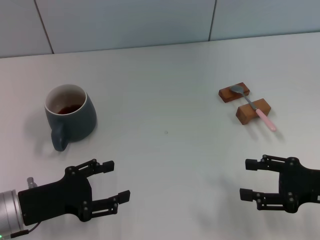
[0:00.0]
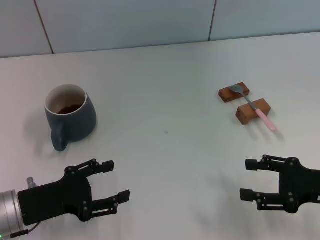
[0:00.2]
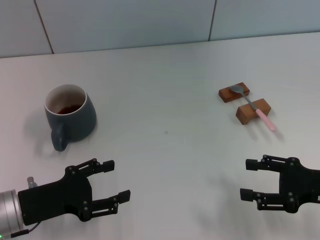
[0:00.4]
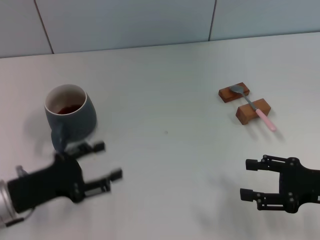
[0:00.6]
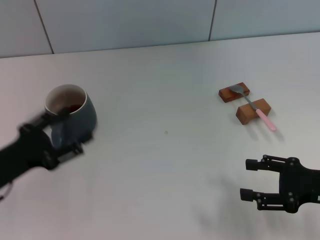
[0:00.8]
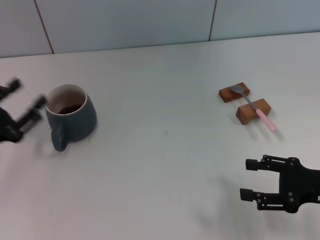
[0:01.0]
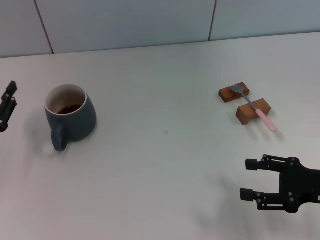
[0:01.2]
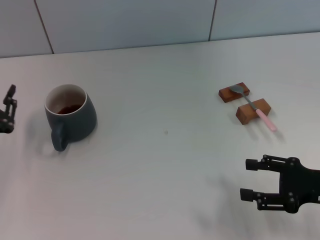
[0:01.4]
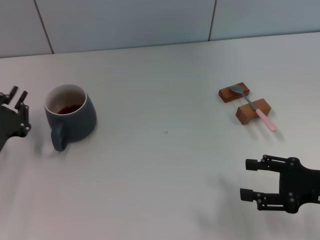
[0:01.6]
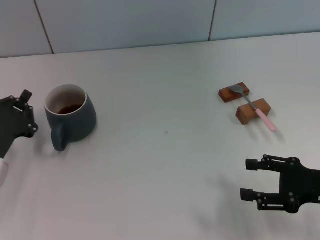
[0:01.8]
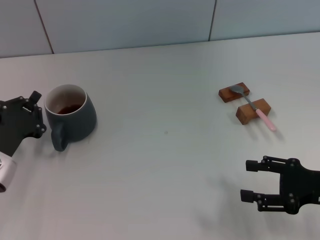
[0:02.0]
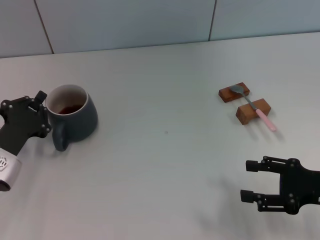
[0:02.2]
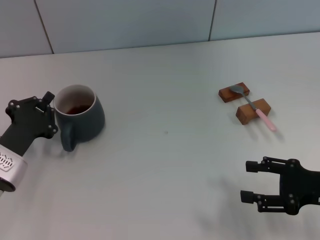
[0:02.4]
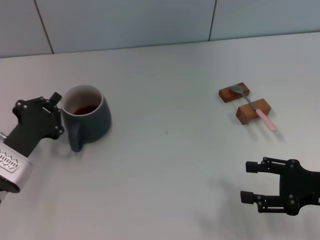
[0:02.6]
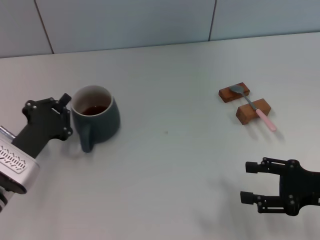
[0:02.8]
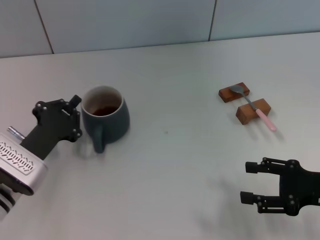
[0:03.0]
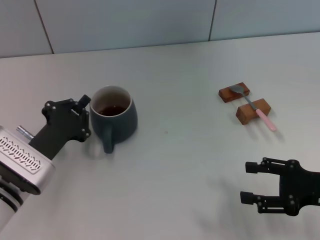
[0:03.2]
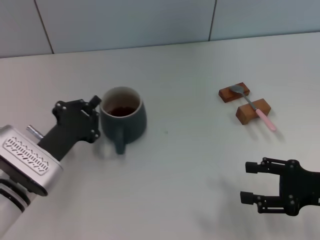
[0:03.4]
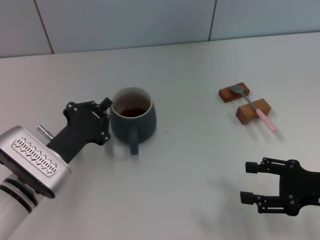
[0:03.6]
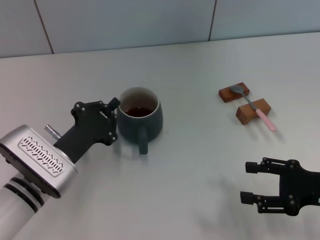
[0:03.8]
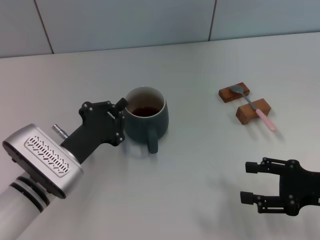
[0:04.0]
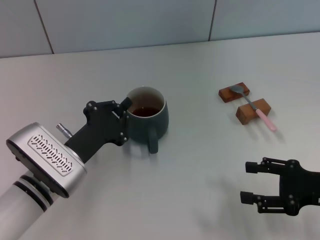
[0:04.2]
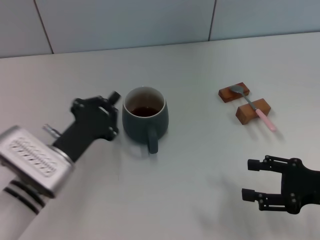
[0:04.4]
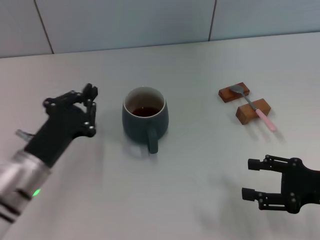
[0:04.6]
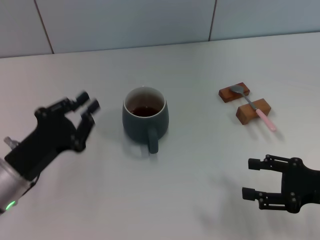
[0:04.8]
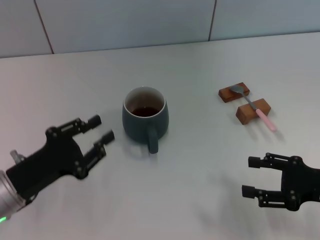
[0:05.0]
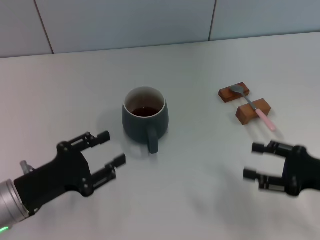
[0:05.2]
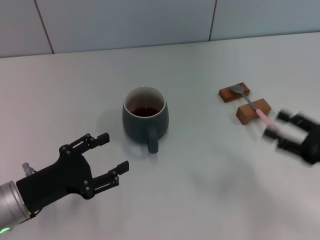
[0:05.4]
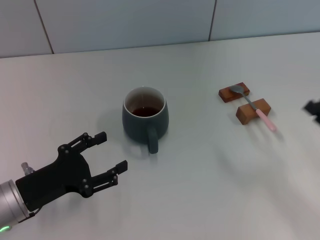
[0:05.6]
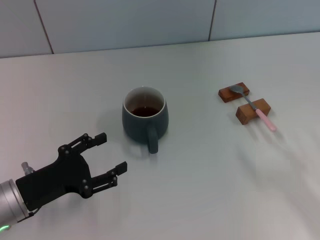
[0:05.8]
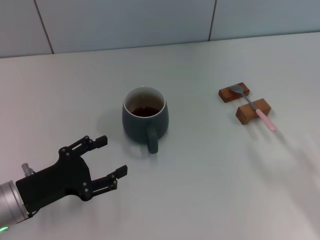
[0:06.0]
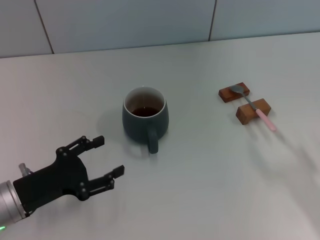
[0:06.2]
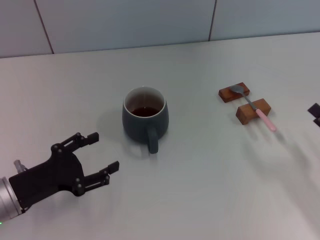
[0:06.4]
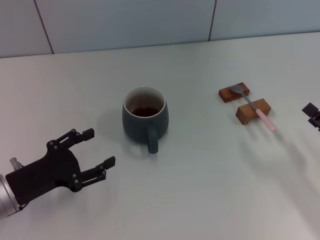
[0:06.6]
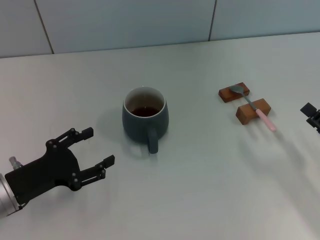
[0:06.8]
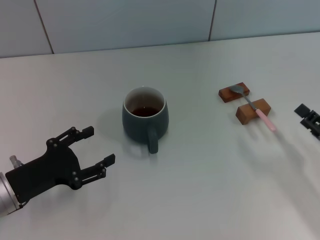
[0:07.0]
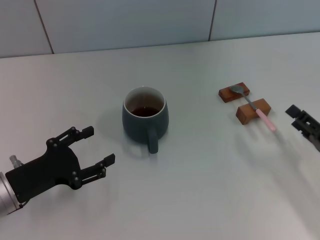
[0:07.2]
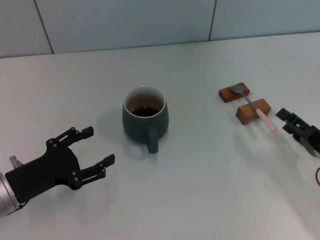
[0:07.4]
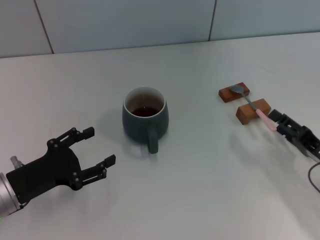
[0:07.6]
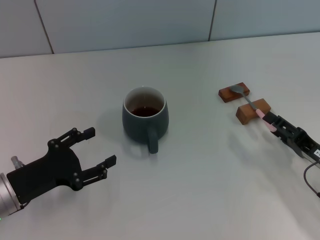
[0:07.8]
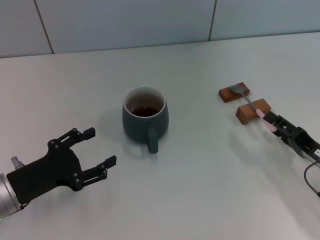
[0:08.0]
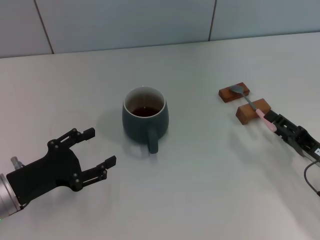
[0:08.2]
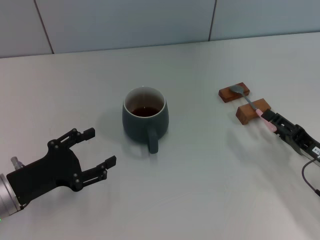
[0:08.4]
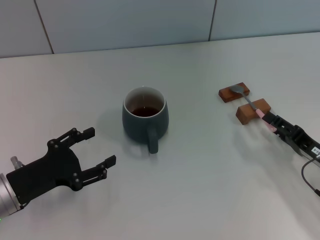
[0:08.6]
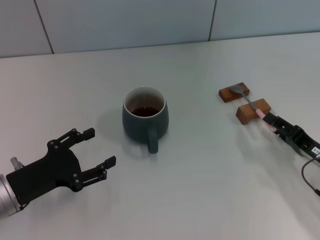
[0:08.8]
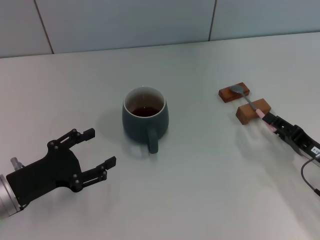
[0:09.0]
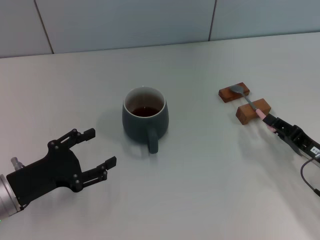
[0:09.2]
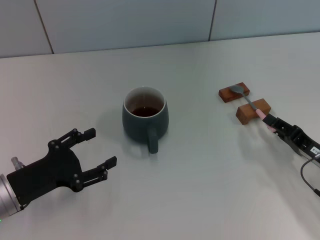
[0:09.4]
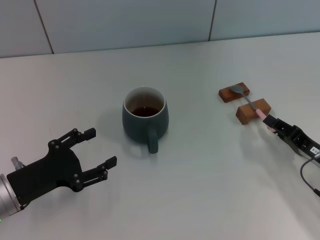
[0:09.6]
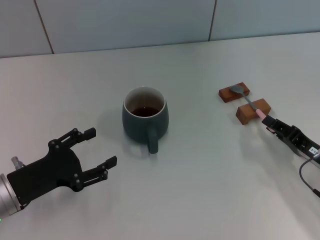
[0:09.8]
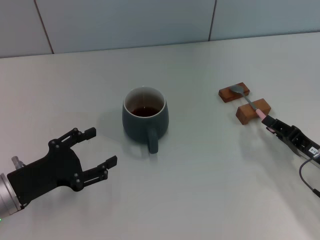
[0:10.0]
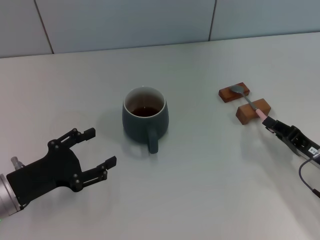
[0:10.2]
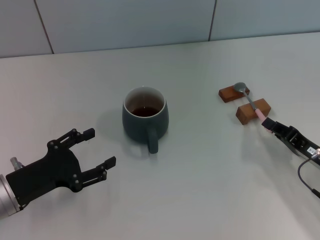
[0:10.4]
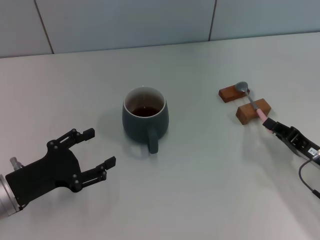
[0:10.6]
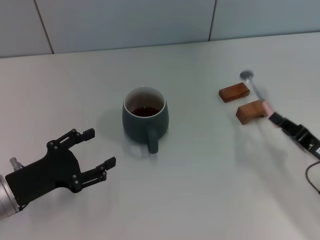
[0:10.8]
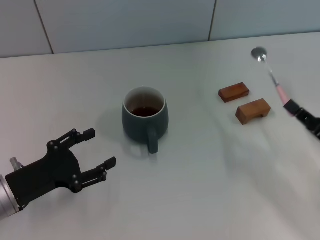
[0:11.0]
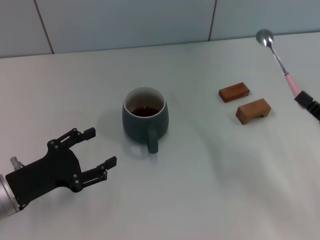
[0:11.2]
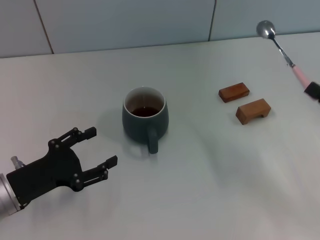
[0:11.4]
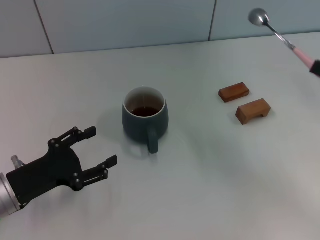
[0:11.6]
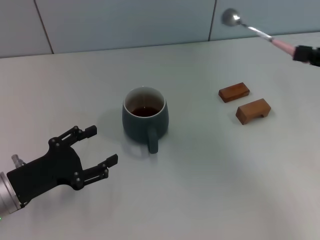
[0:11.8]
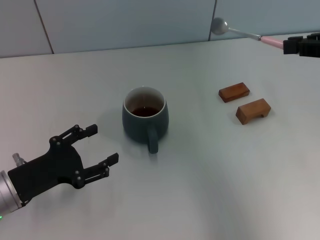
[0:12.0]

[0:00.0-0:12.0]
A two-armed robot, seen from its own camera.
Task of the whole recording: Move the grey cup to the center, lift the pink spoon, stir it three times in the cup, and put the spoon into the cup.
Step, 0:00.0 to 0:04.4: Move the cup with coffee to the center of view with the left gripper.
Step, 0:04.6 to 0:10.6: Pick up the spoon with the right gripper.
0:00.0 to 0:01.6: The left gripper closes up.
0:01.6 to 0:03.0: The left gripper goes about 5 cm to the right, and closes up.
0:03.0 to 0:04.4: The grippers move only a little.
0:04.4 to 0:06.0: The left gripper goes some 5 cm to the left, and opens. Meanwhile the right gripper shifts by about 5 cm.
0:06.0 to 0:07.6: The right gripper changes place by about 5 cm.
0:07.6 to 0:09.0: The two grippers keep their place.
0:09.0 to 0:10.4: The right gripper closes up.
0:10.4 to 0:12.0: The right gripper heads upward, covering about 25 cm.

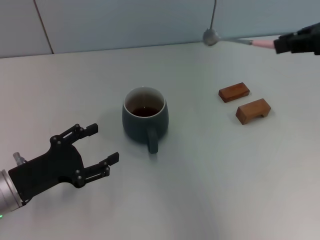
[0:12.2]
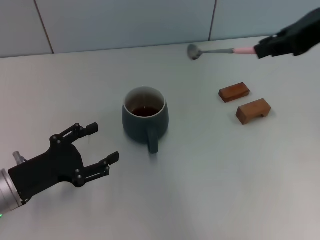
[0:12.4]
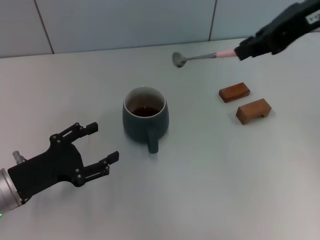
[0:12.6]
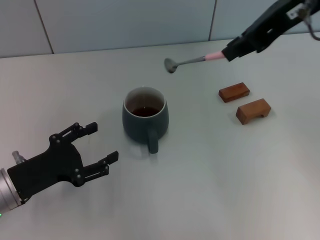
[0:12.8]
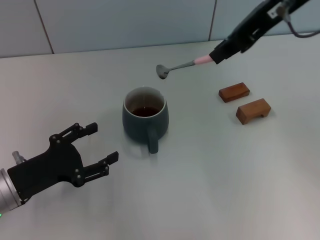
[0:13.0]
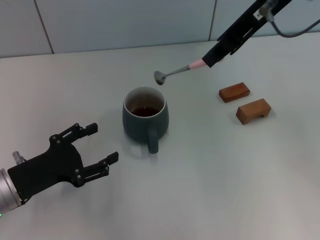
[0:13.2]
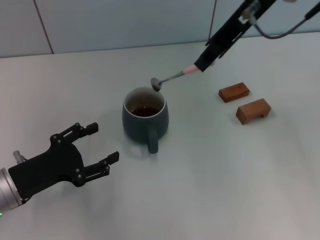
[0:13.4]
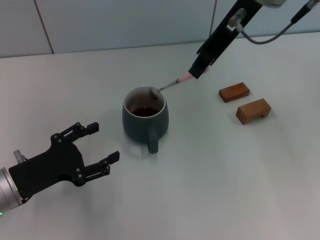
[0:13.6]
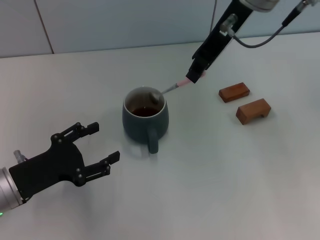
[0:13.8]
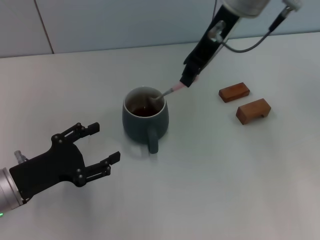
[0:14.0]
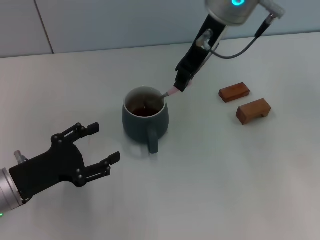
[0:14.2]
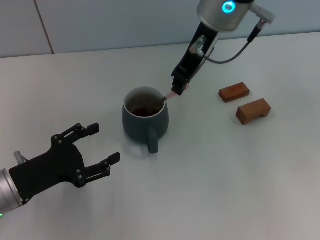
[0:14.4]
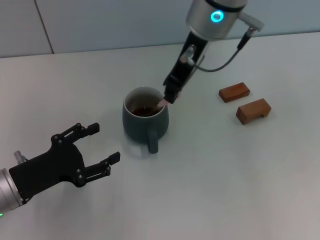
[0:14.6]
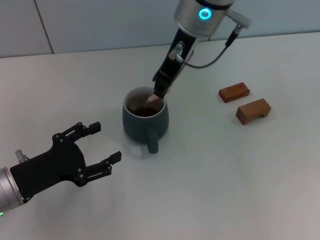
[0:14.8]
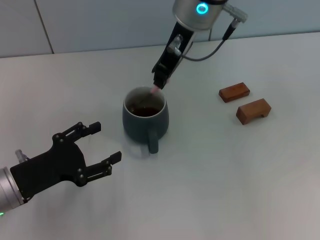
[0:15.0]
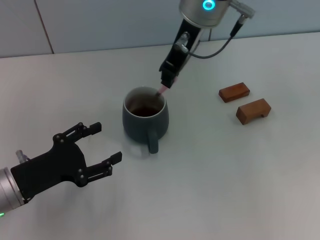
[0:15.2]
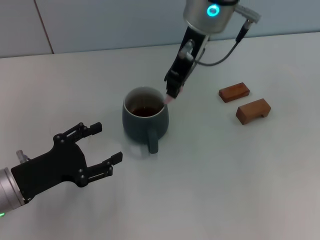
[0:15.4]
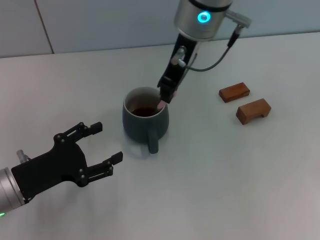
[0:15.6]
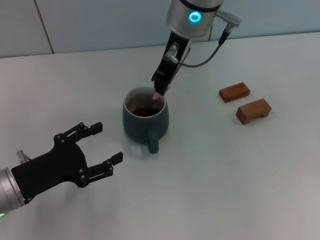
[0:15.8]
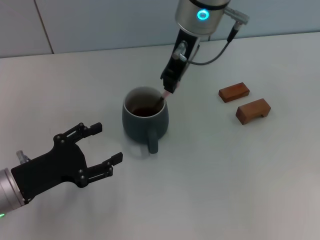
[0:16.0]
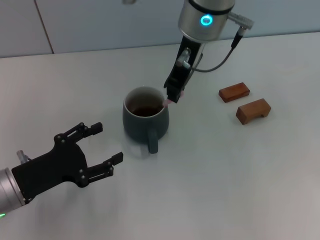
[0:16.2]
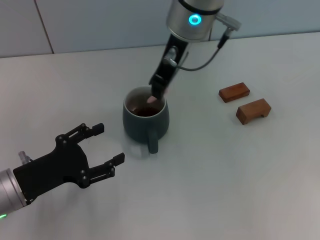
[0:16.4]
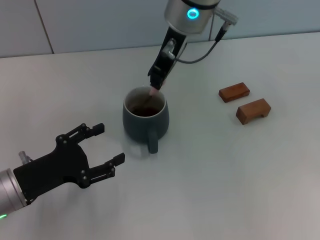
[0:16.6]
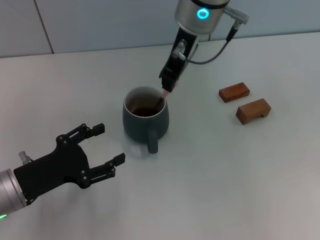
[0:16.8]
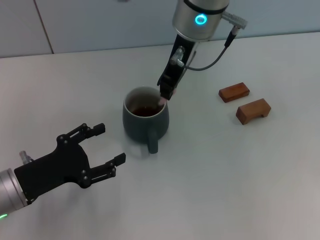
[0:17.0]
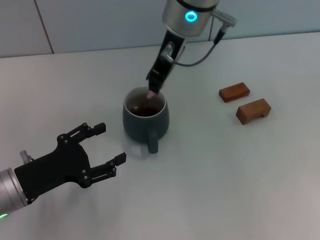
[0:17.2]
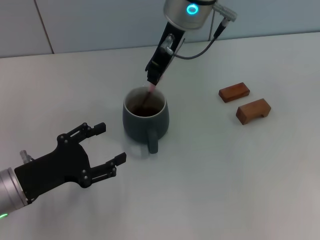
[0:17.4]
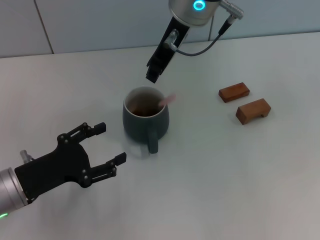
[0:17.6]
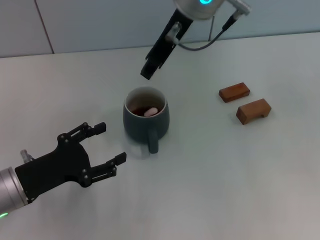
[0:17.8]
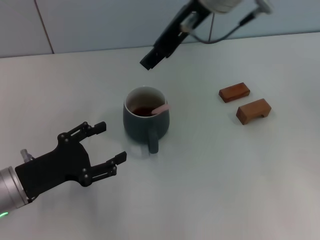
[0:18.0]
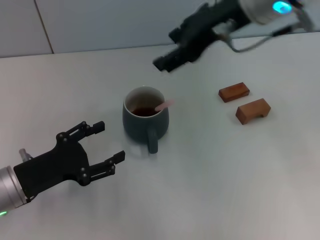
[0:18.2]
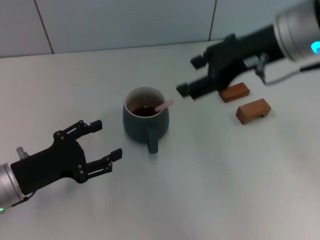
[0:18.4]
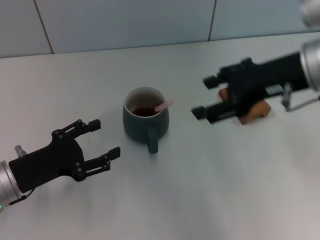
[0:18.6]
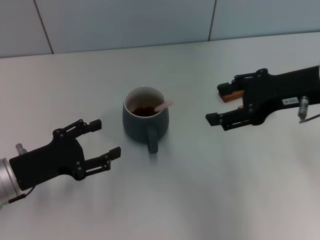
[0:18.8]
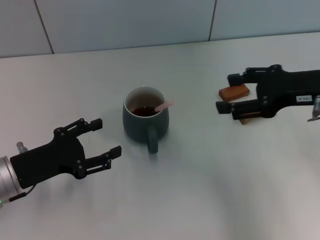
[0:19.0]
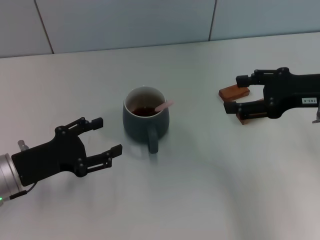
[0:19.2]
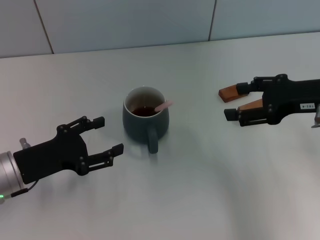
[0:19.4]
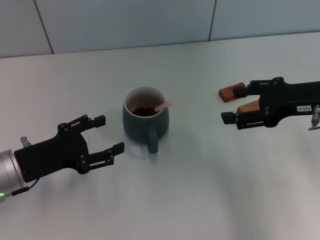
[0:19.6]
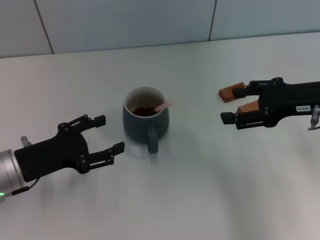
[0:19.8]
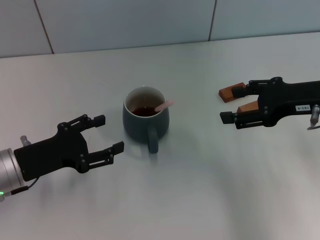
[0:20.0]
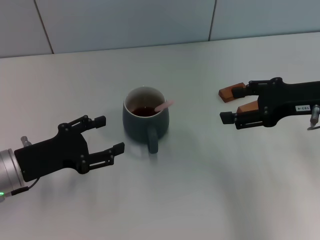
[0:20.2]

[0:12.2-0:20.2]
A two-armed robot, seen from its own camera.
Task of the whole recording: Move the grey cup to the center, lift the pink spoon, stir it three times in the cup, and put the spoon into the cup.
Step, 0:12.2 to 0:17.8: Stir the coffee in the cup with the right gripper.
0:12.2 to 0:13.8: The right gripper heads to the left and forward, covering approximately 20 cm.
0:13.8 to 0:15.4: The right gripper travels to the left by roughly 5 cm.
0:15.4 to 0:17.0: There are only small adjustments of the grippers.
0:17.0 to 0:18.6: The right gripper moves to the right and backward, approximately 20 cm, and opens its fingers.
0:18.6 to 0:20.2: The right gripper travels downward and to the right by approximately 10 cm.
